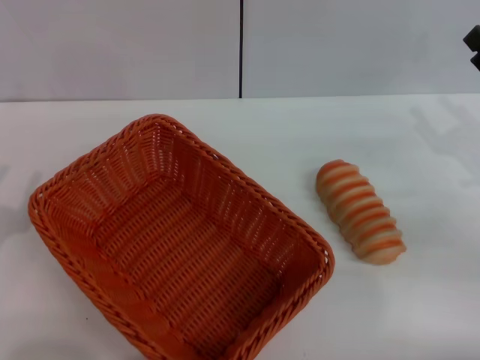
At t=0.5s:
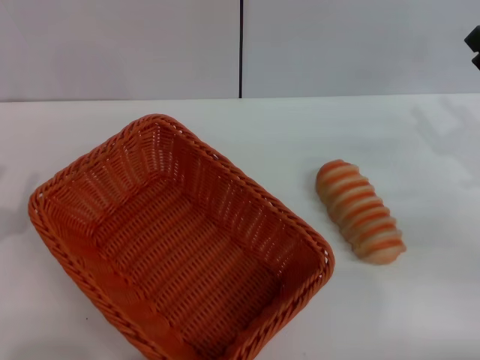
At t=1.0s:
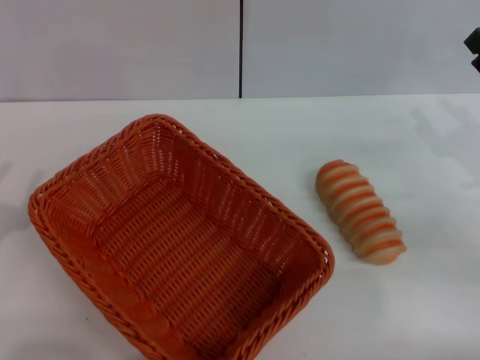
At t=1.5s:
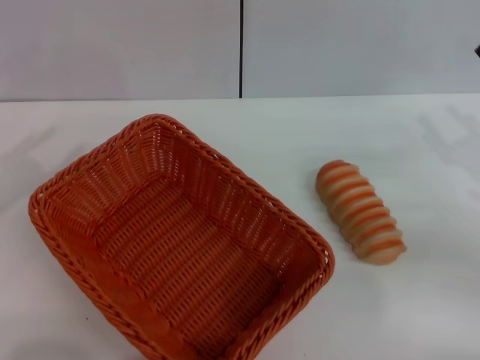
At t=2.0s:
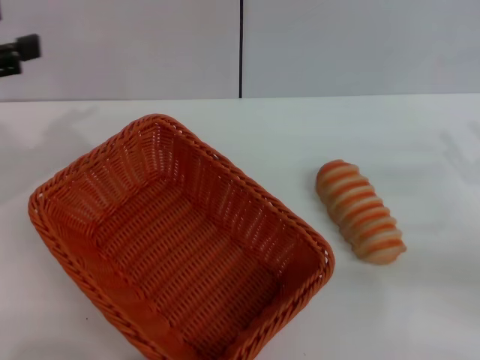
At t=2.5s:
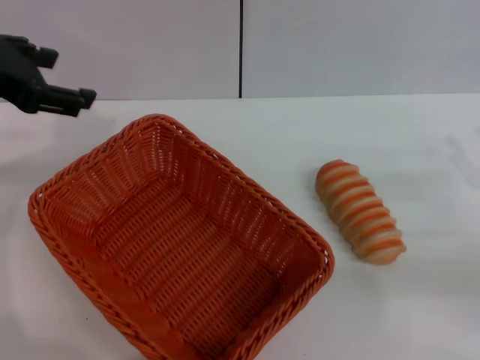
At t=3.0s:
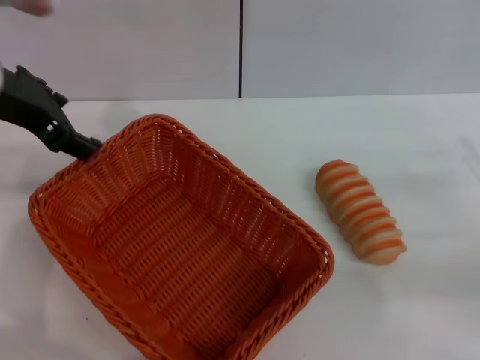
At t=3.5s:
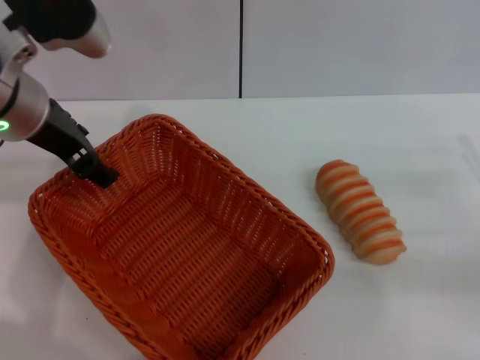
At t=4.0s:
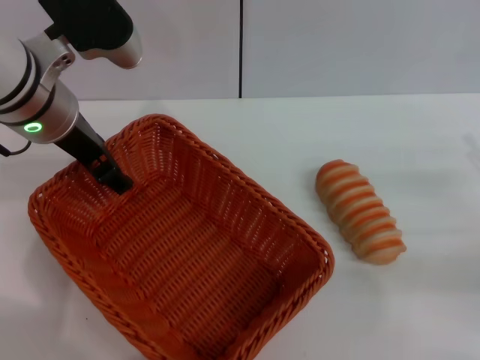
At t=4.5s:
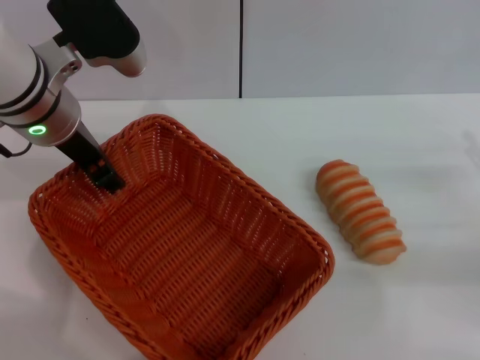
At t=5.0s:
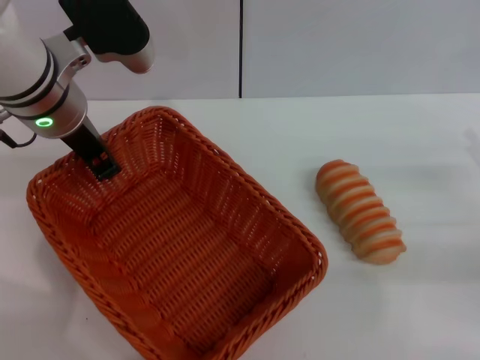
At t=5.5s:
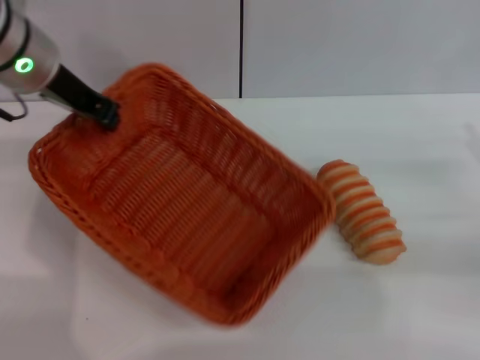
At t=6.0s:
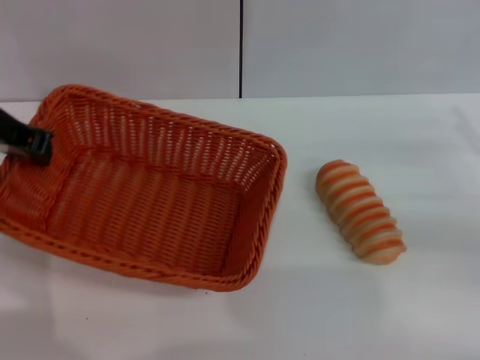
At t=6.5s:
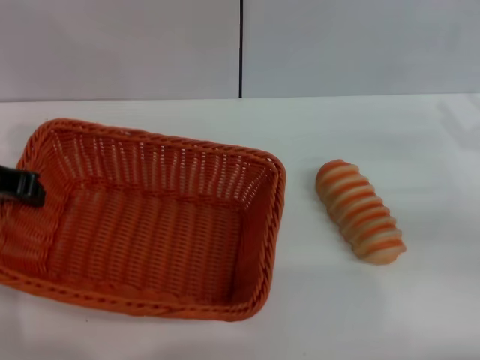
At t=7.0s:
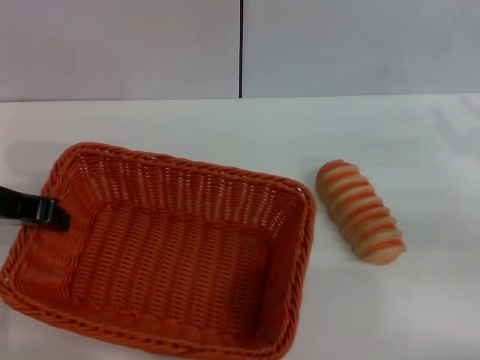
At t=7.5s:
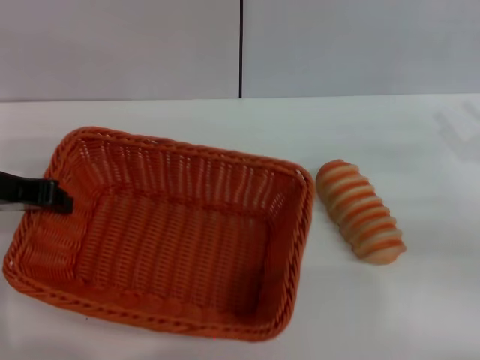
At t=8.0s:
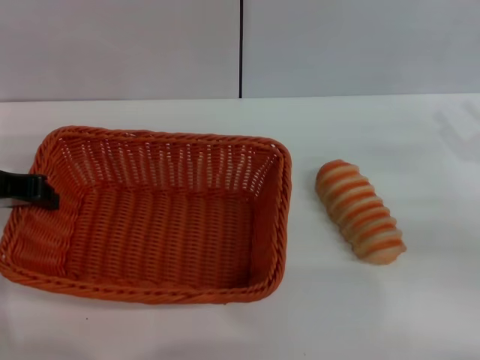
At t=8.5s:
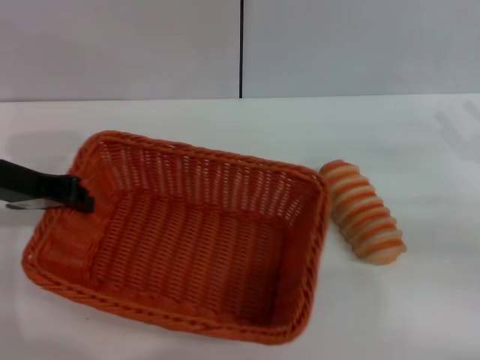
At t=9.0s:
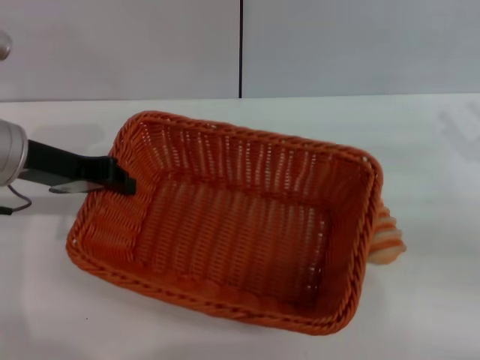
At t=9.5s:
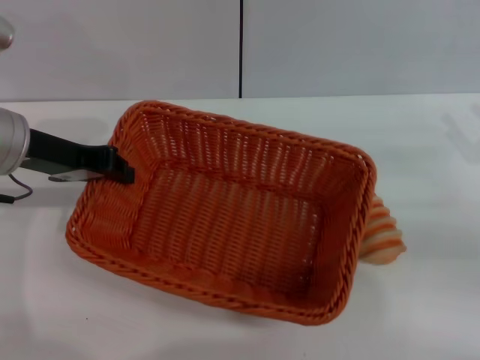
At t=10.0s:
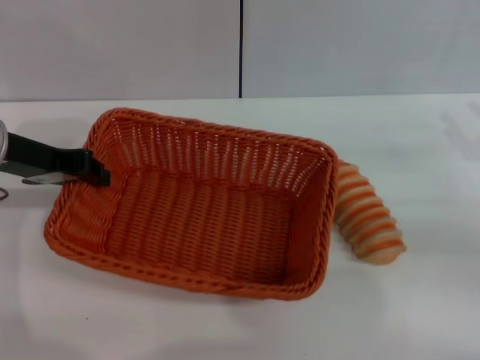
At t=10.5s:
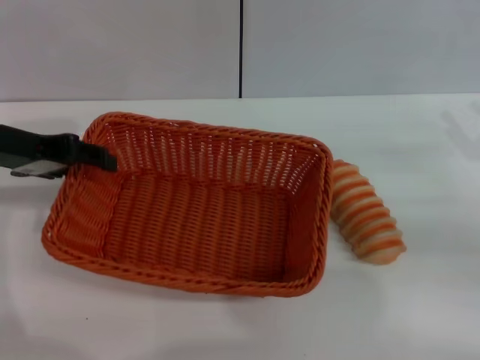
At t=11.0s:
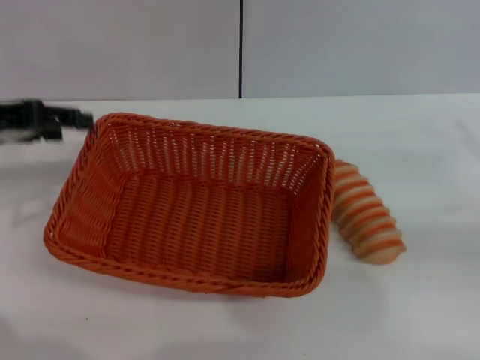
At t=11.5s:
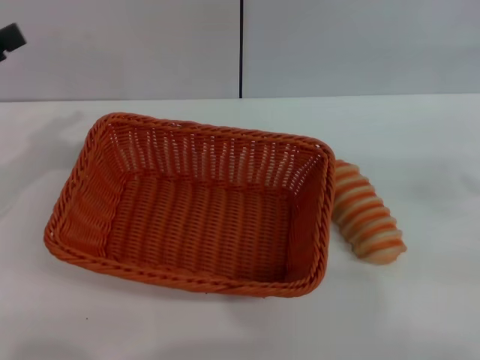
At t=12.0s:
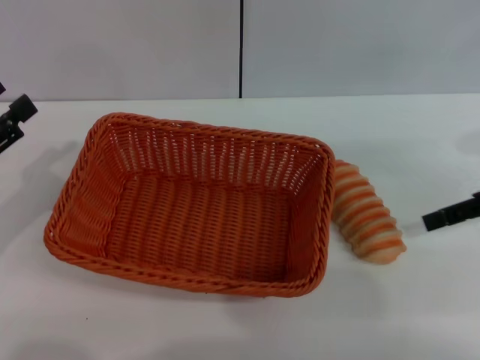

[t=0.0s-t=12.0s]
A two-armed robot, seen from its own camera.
Step, t=0.0s to t=5.5s: Pick up the light basket with the left gripper.
Step, t=6.0s to t=10.5s: Place the light basket in the center of view with the left gripper.
t=0.0s to t=2.0s: The left gripper goes approximately 20 cm upward and forward.
t=2.0s to t=4.0s: The left gripper travels to the right and forward by roughly 20 cm.
t=4.0s to t=6.0s: The left gripper heads to the left, covering about 5 cm, and closes its fingers.
t=6.0s to t=8.0s: The left gripper moves backward, some 5 cm.
t=8.0s to t=10.0s: The grippers make only small movements.
t=10.0s to t=12.0s: The right gripper shifts approximately 5 cm upward, while the left gripper travels backward, to the left and downward by about 15 cm, and opens.

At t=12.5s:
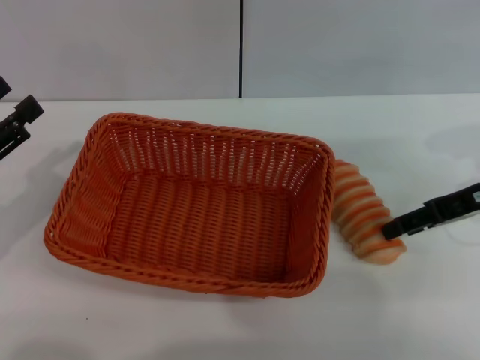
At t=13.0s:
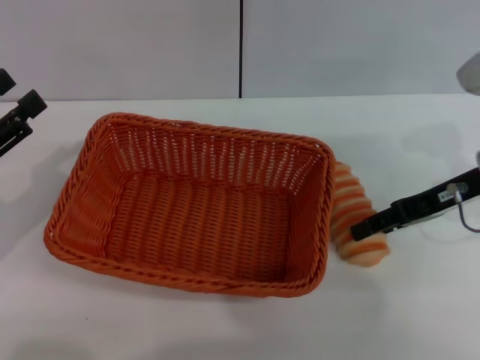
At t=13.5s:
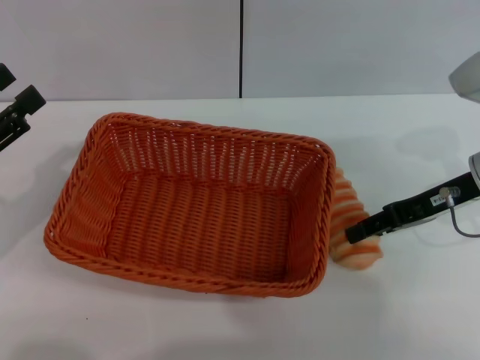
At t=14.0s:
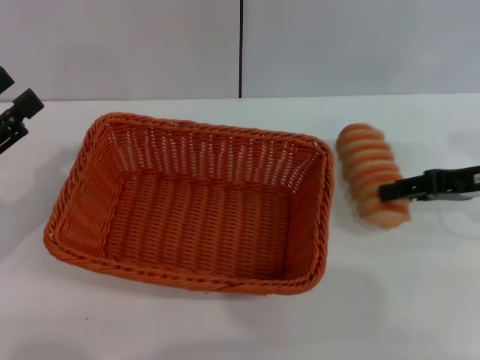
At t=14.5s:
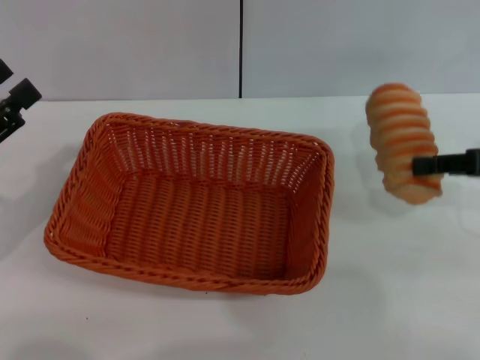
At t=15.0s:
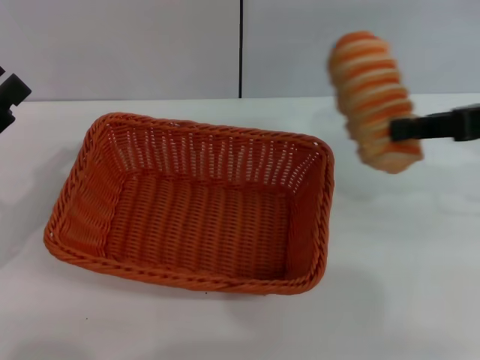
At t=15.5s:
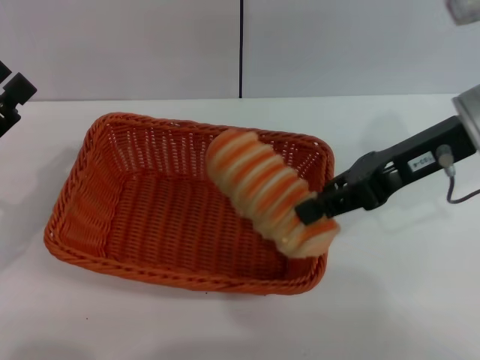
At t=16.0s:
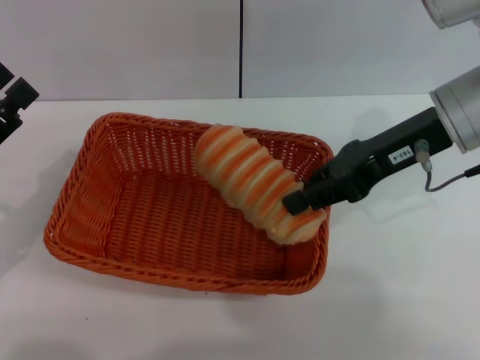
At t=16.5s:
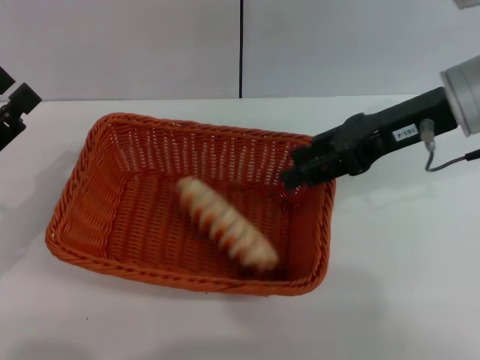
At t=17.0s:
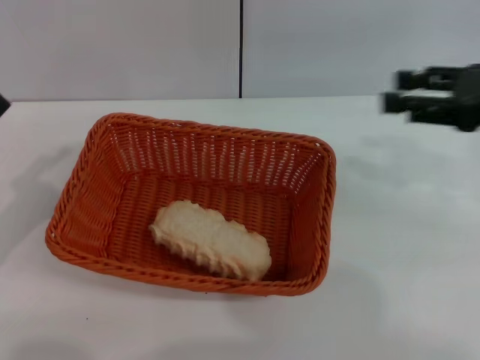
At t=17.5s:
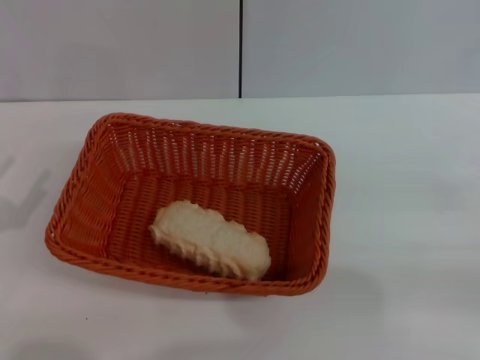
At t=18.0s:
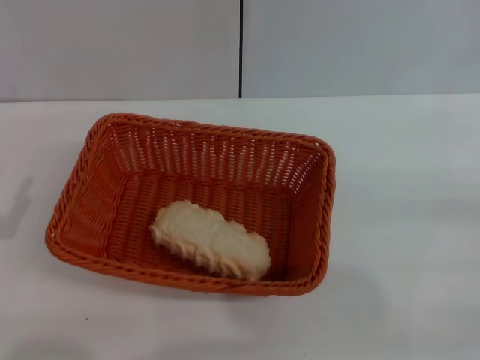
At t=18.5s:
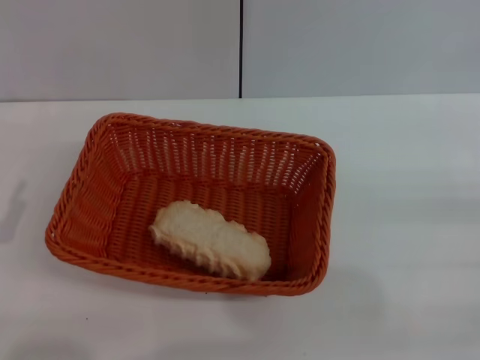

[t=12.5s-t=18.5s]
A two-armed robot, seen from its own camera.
Step, t=14.5s to t=16.5s: Place the long bread into the light basket with the right gripper.
t=12.5s to t=14.5s: The right gripper moves approximately 5 cm, and closes.
t=14.5s to t=16.5s: The right gripper goes some 15 cm to the left and forward, and opens its fingers.
t=16.5s to t=18.5s: The right gripper goes about 30 cm to the right, backward and downward, and closes; the left gripper heads backward, covering roughly 5 cm.
